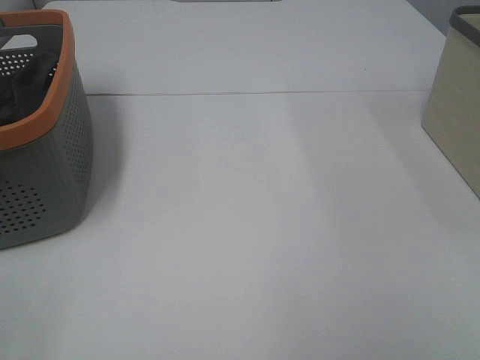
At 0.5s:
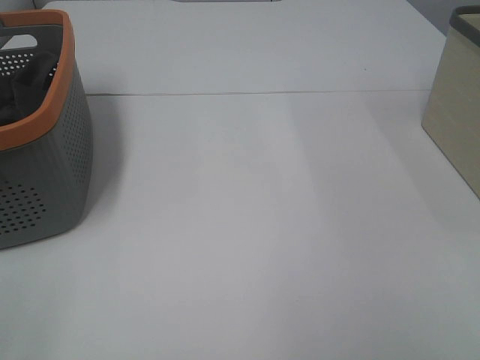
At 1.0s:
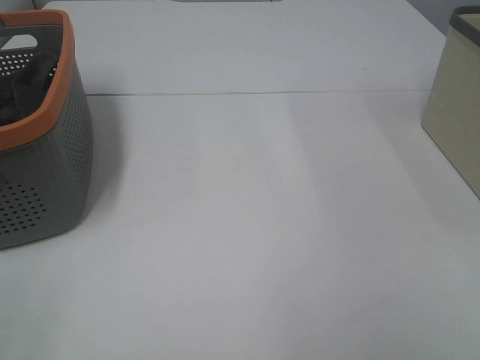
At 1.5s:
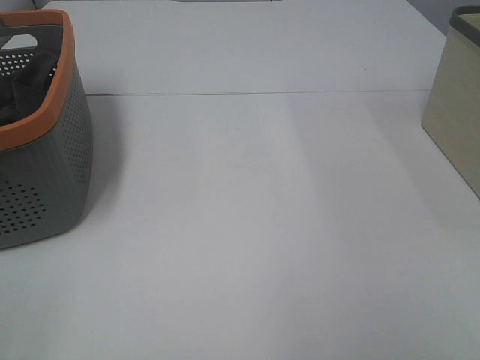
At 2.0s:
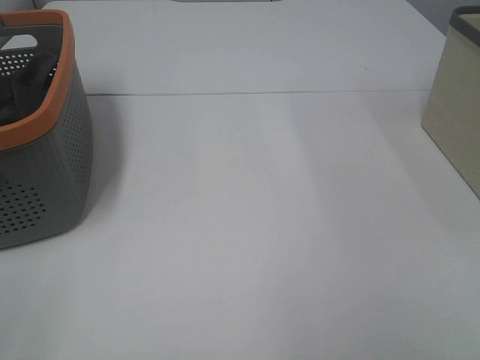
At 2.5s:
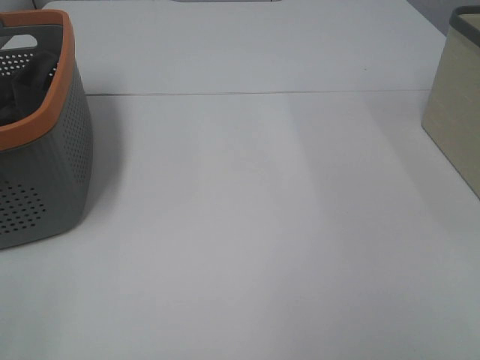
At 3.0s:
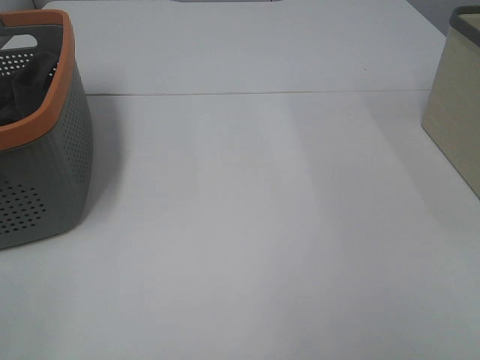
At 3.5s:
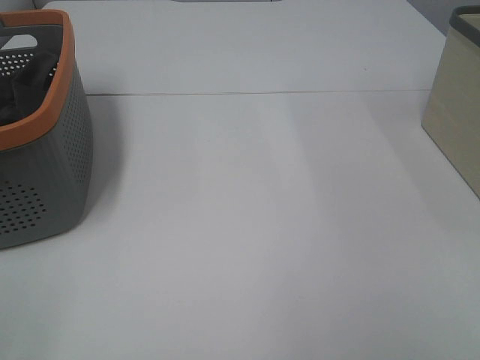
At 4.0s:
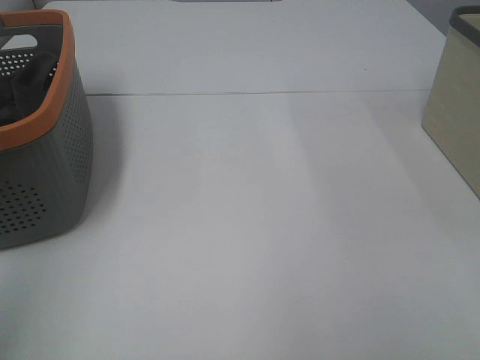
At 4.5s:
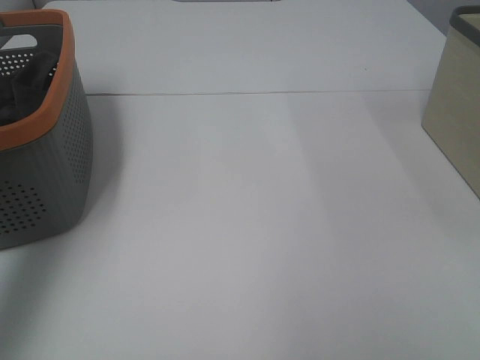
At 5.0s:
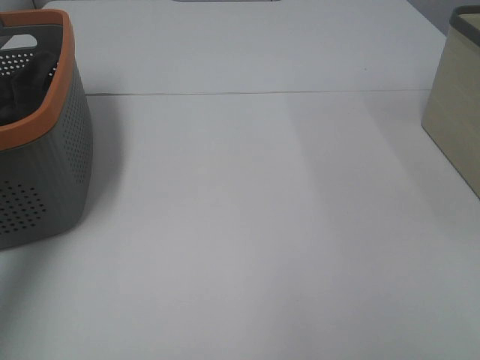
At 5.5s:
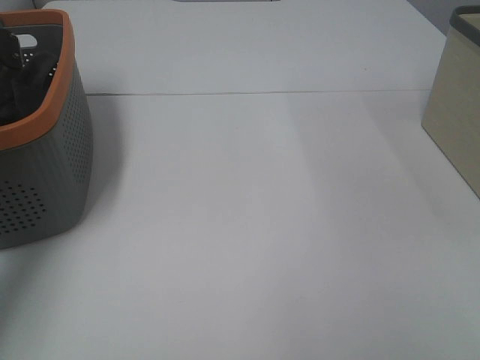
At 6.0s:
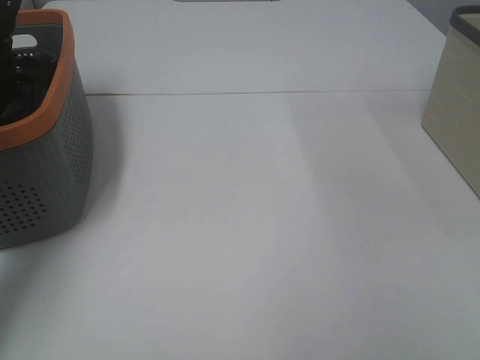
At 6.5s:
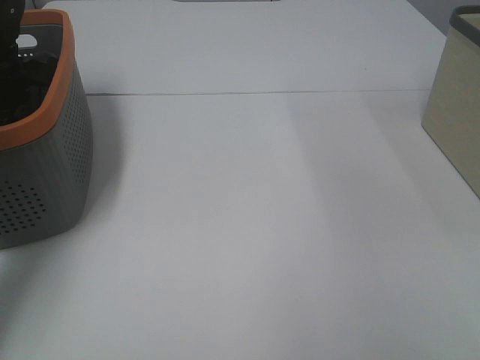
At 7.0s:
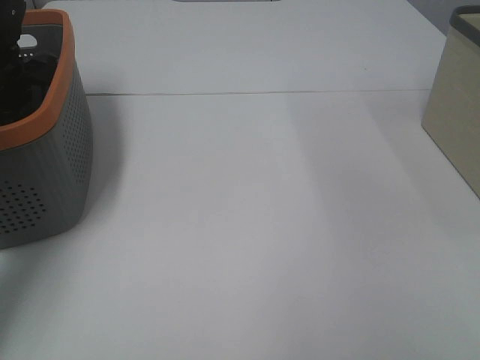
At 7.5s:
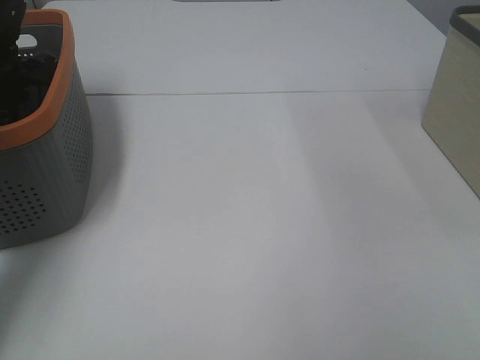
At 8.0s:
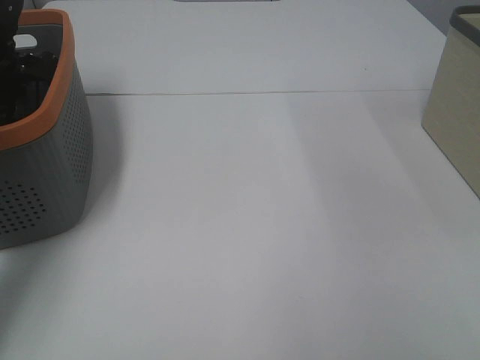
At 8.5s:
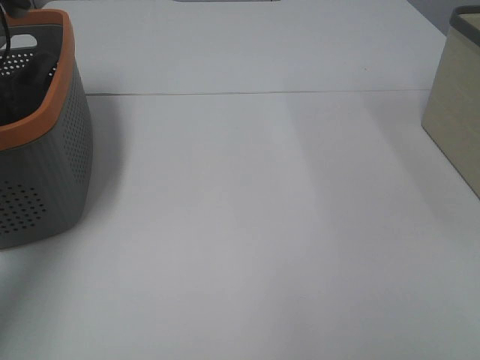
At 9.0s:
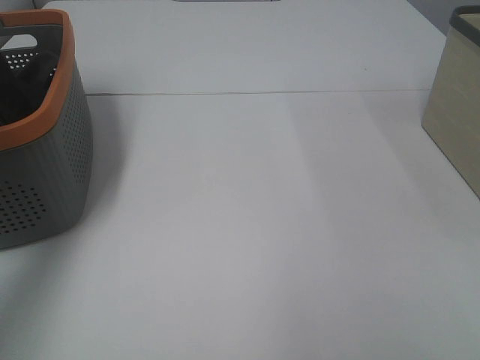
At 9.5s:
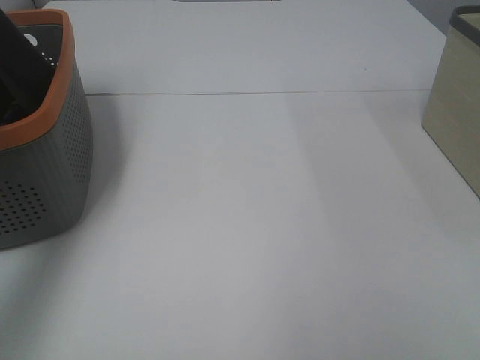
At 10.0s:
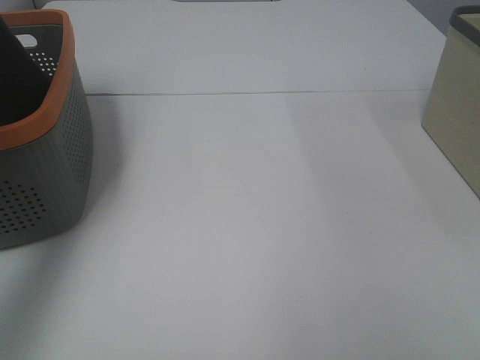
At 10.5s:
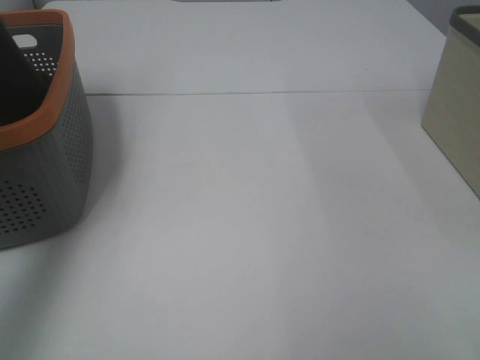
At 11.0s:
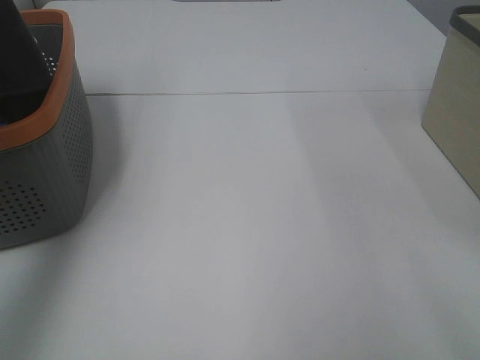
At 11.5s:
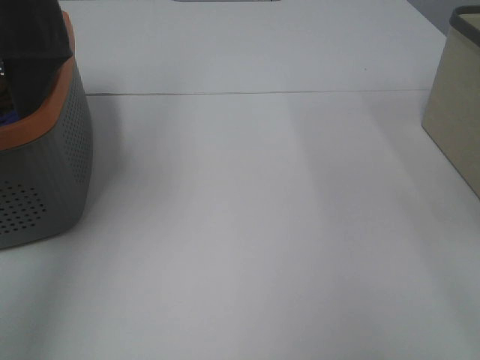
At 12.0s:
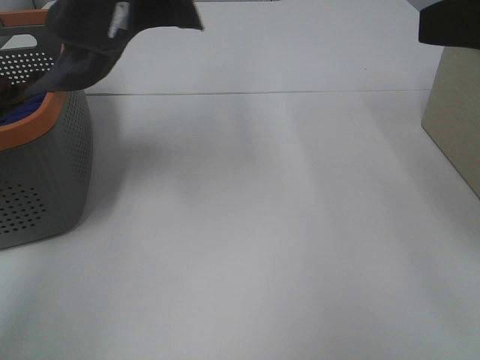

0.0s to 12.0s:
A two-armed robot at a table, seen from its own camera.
Task of the whole recording: Remove the towel and place it.
0.0s to 2.0s: Both grippers stay put.
4.0s to 6.0s: The left gripper goes roughly 50 cm forward and downward.
8.0s to 10.0s: The left gripper is displaced upward and backward by about 30 cm.
10.0s to 12.0s: The left gripper heads to the right and upward, covering approximately 20 cm. Meanwhile the right gripper shifts approximately 20 cm forward.

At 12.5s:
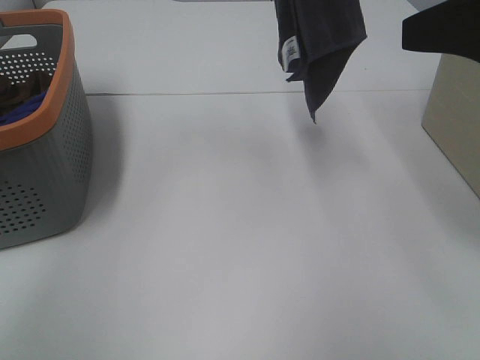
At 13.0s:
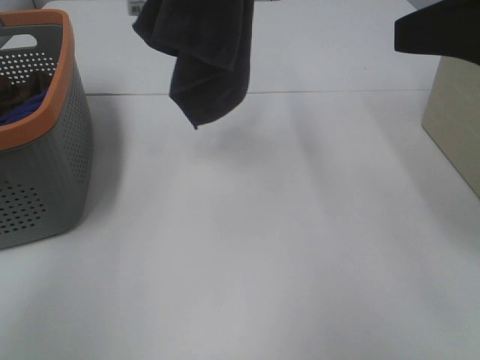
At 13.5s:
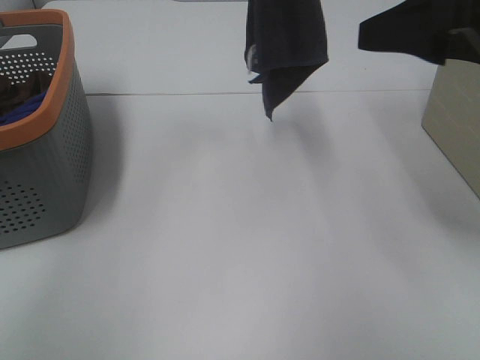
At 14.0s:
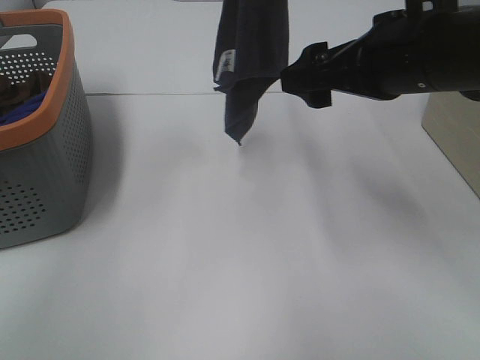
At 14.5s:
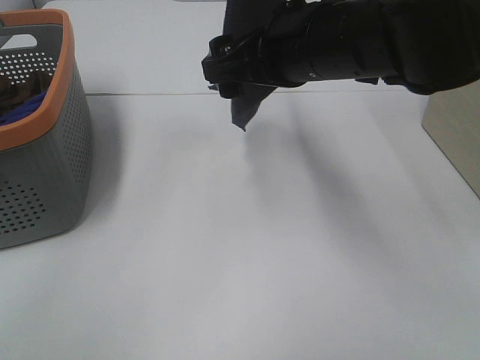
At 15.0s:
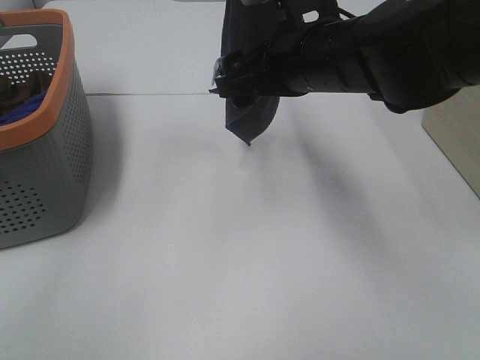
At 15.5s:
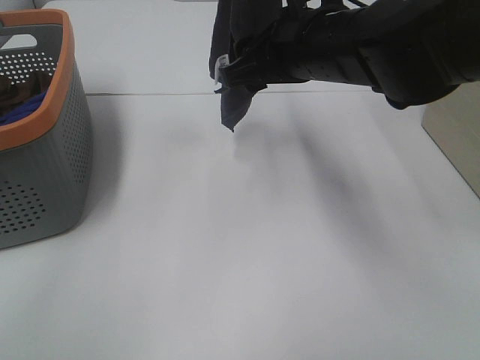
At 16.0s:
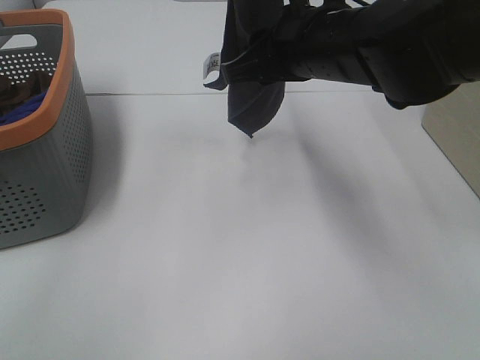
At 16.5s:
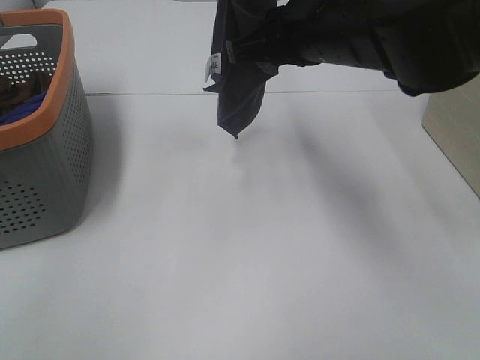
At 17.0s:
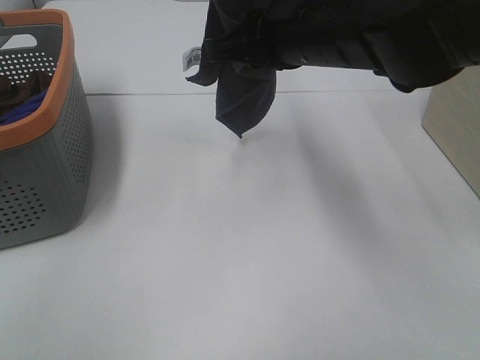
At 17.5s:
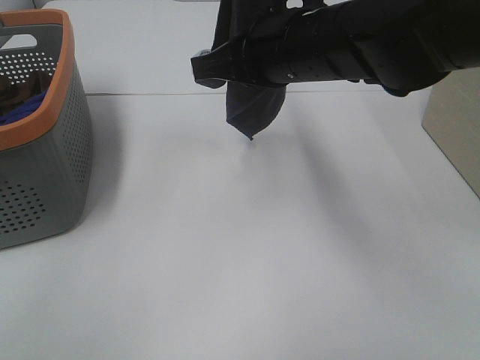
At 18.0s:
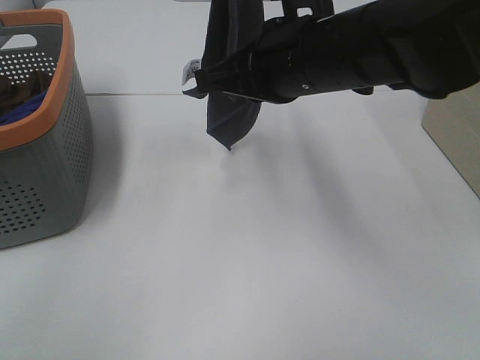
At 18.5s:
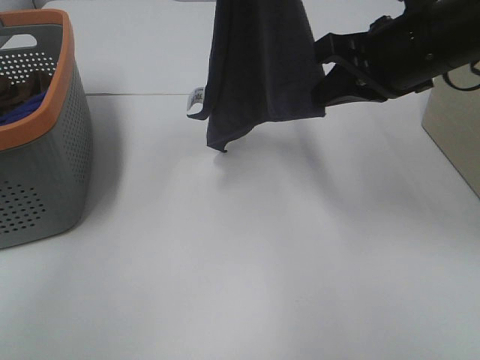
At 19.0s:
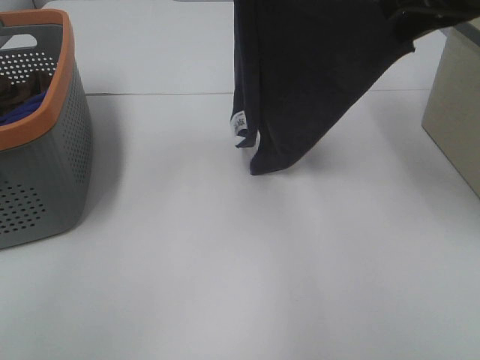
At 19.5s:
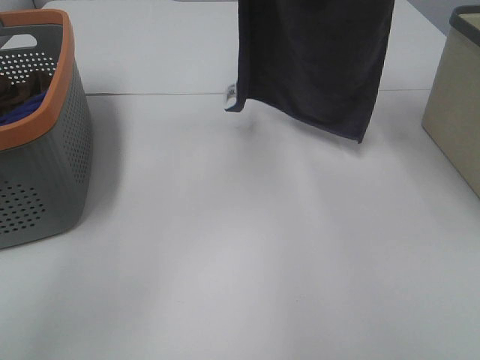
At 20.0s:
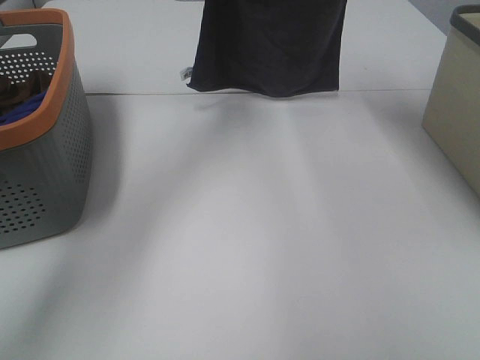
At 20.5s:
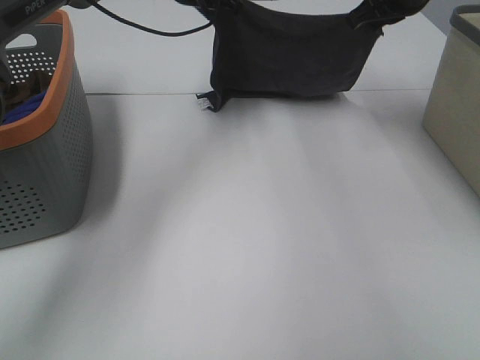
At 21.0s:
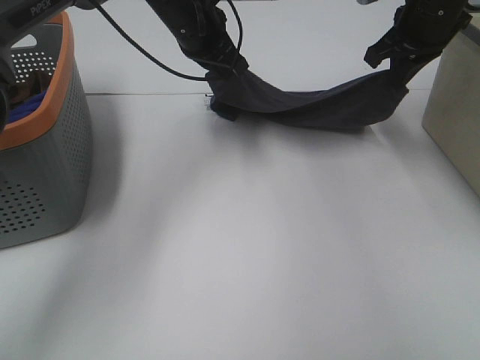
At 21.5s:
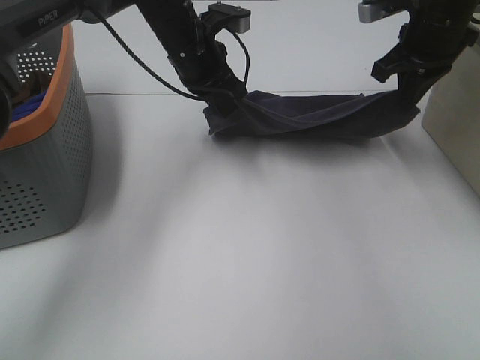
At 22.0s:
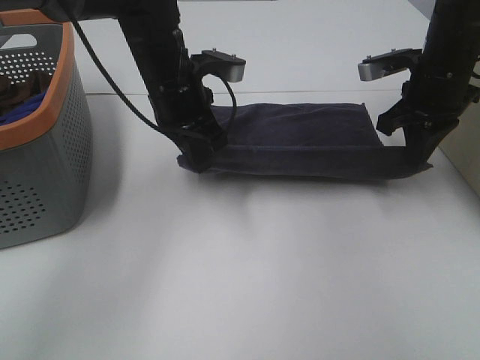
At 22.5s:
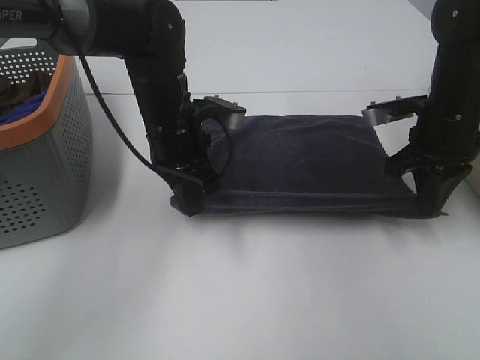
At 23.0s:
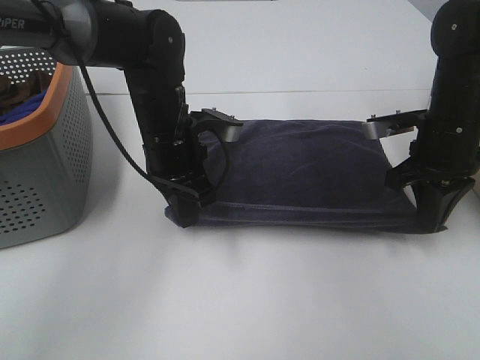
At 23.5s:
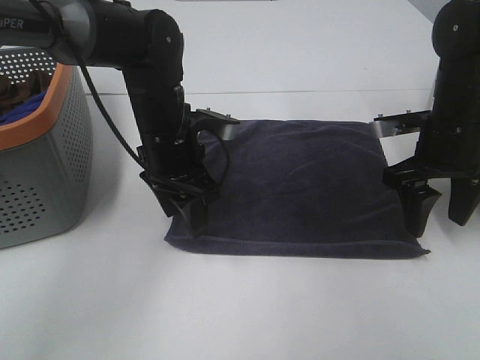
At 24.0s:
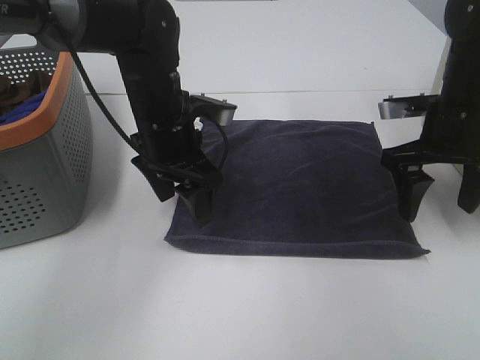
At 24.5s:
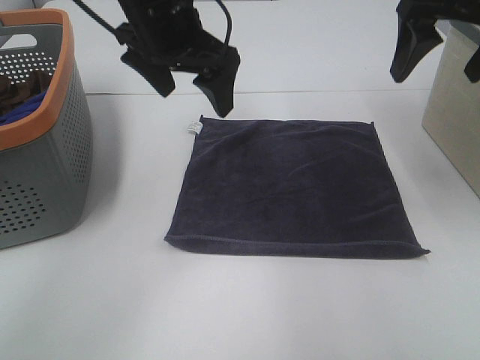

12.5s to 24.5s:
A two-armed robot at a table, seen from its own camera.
Task of the whole recording: Remove the towel and place it.
Step, 12.5s to 15.5s: Right hand: grab a corner of the grey towel and straighten it.
Step, 16.0s to 18.5s: Right hand: spread the grey towel flat on the table.
12.5s to 14.5s: The right gripper heads to the left, forward and downward, covering roughly 20 cm.
14.5s to 16.5s: The right gripper closes its fingers.
16.5s to 18.5s: The right gripper travels to the right by roughly 10 cm.
18.5s to 20.5s: The left gripper travels downward and forward by roughly 25 cm. Meanwhile the right gripper heads forward, covering approximately 15 cm.
20.5s to 22.5s: Both grippers travel together backward and downward, about 20 cm.
22.5s to 24.5s: The grippers both shift upward by roughly 15 cm. The right gripper opens up, while the left gripper opens up.

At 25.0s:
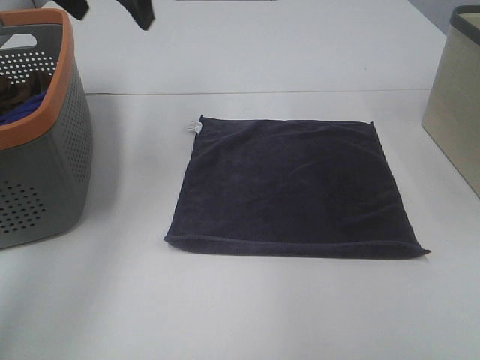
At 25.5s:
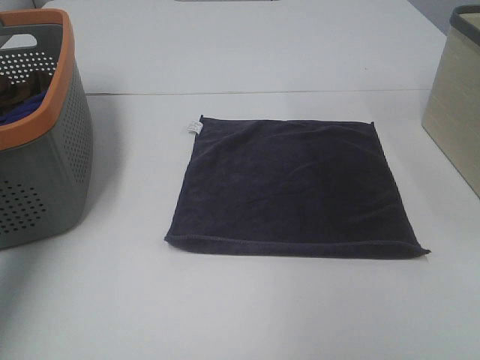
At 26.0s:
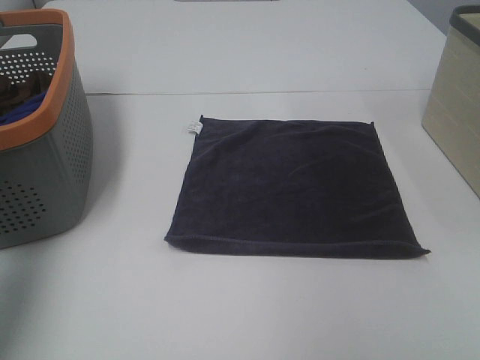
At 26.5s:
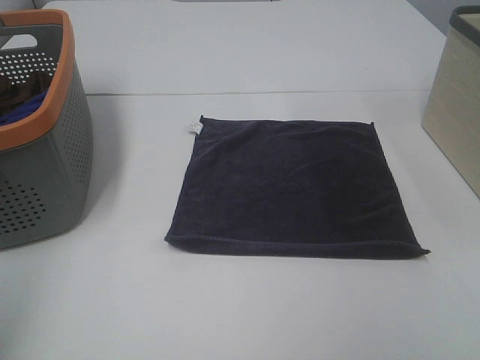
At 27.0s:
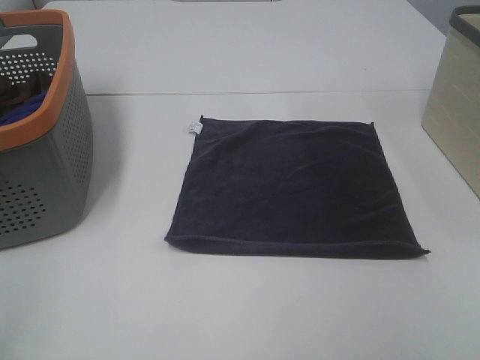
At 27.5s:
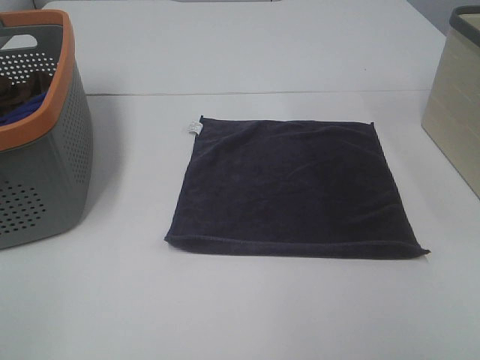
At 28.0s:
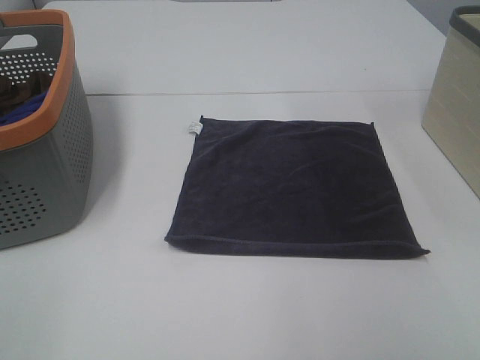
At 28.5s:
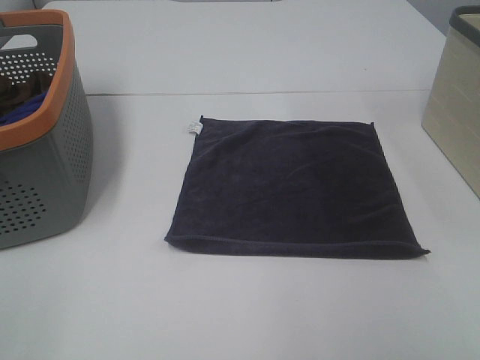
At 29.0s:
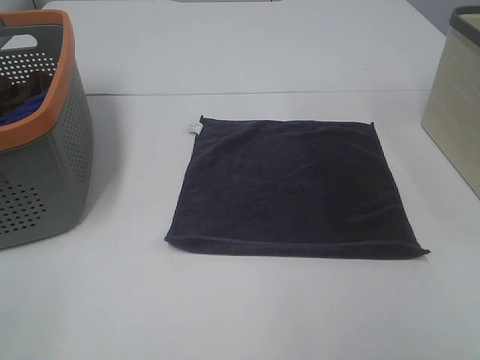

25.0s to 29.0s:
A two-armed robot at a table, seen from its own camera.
Task of the whole recording: Remove the towel and place it.
25.0s to 27.0s: The left gripper moves backward, about 40 cm.
